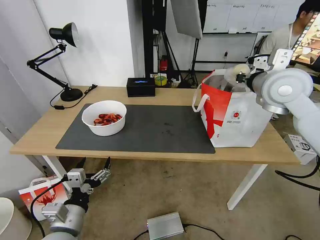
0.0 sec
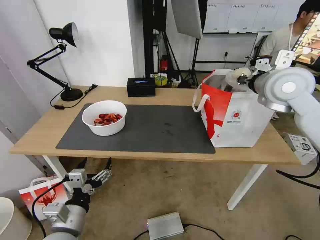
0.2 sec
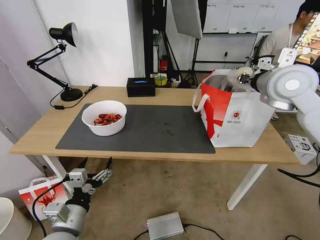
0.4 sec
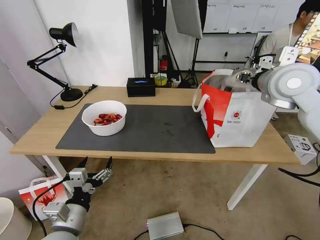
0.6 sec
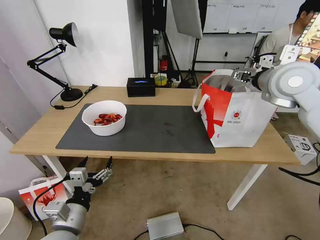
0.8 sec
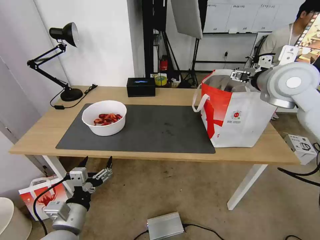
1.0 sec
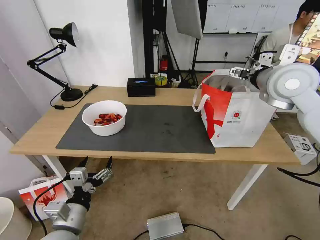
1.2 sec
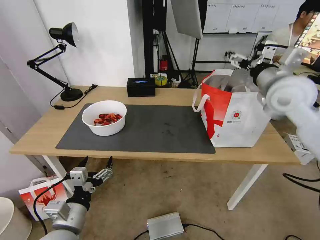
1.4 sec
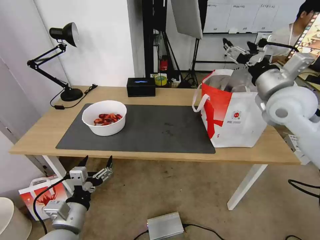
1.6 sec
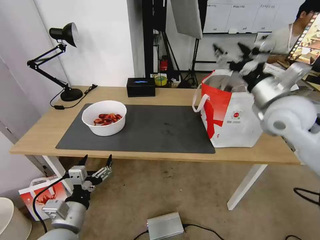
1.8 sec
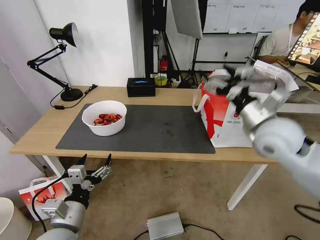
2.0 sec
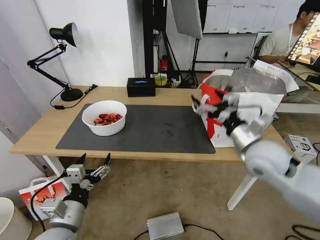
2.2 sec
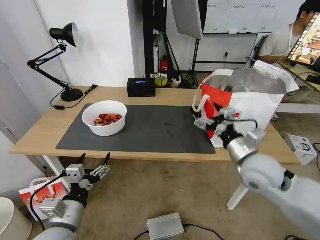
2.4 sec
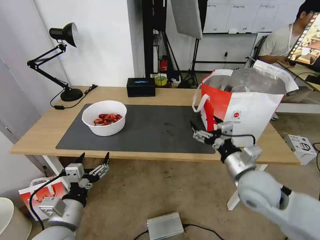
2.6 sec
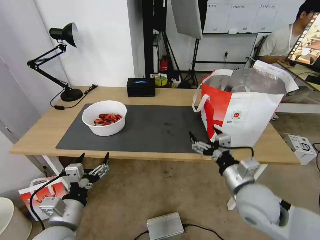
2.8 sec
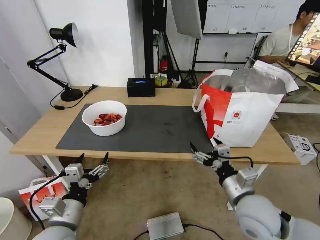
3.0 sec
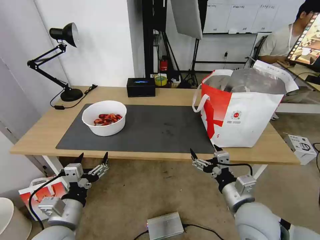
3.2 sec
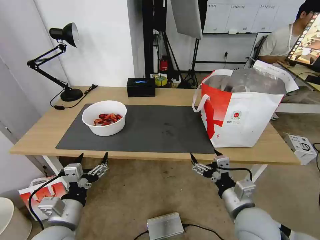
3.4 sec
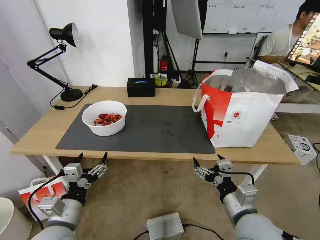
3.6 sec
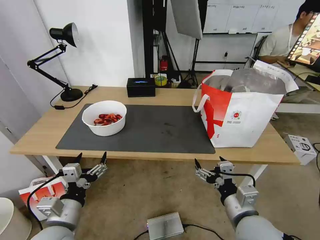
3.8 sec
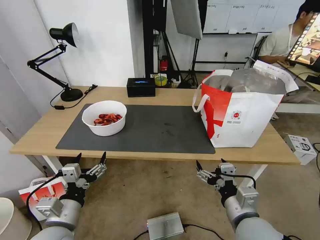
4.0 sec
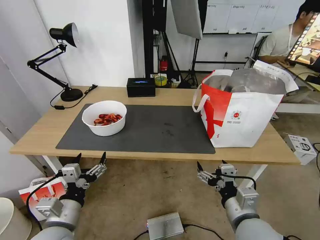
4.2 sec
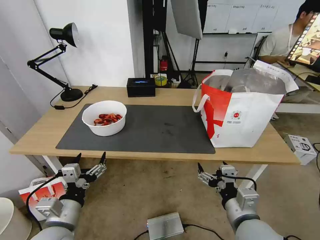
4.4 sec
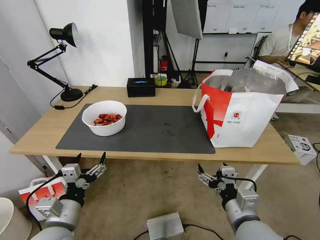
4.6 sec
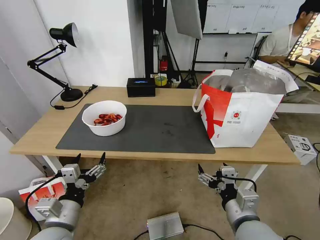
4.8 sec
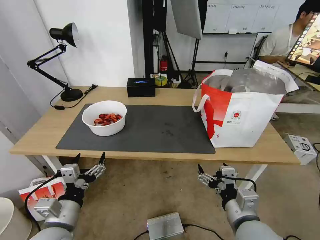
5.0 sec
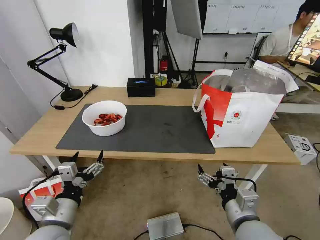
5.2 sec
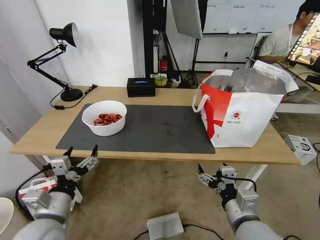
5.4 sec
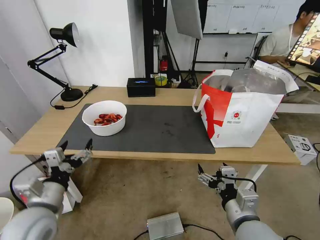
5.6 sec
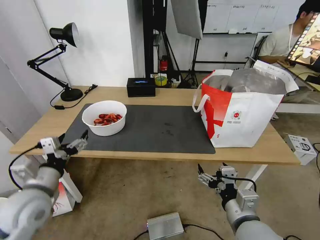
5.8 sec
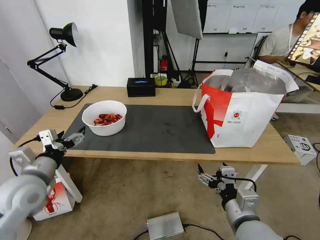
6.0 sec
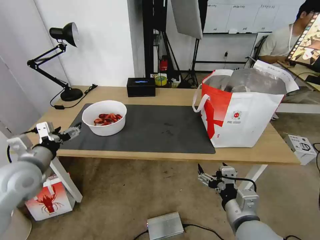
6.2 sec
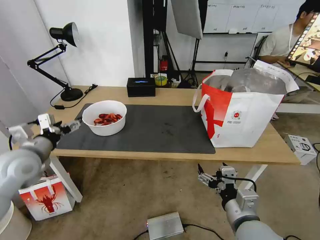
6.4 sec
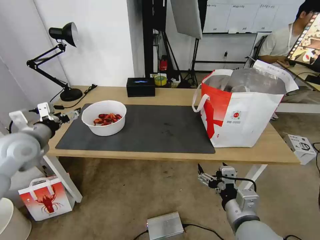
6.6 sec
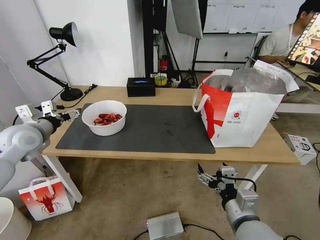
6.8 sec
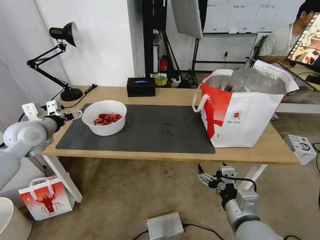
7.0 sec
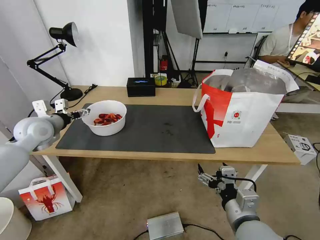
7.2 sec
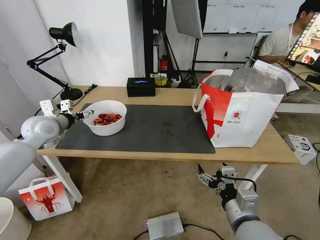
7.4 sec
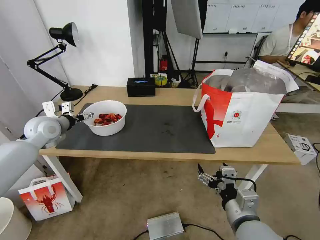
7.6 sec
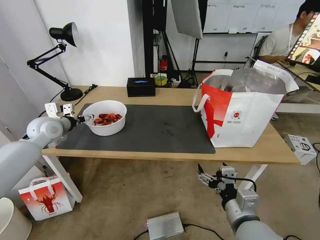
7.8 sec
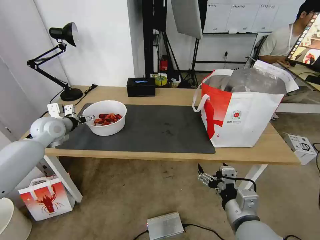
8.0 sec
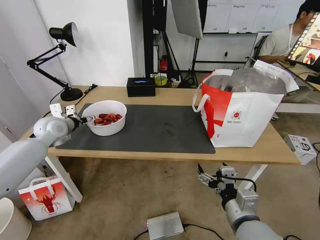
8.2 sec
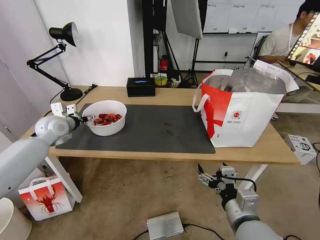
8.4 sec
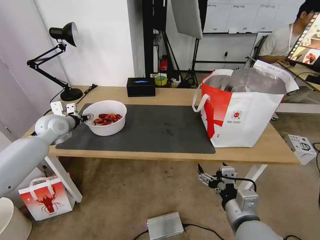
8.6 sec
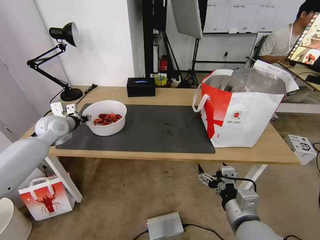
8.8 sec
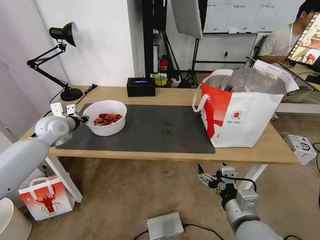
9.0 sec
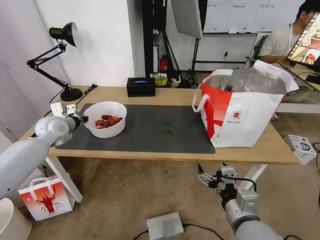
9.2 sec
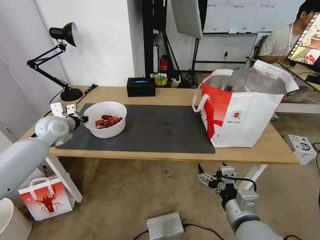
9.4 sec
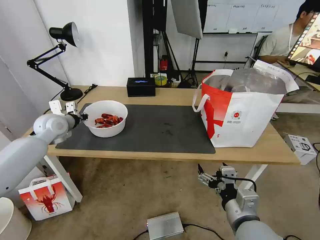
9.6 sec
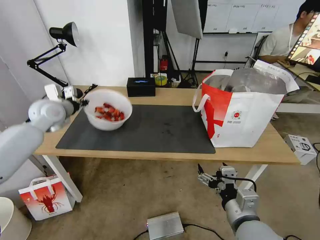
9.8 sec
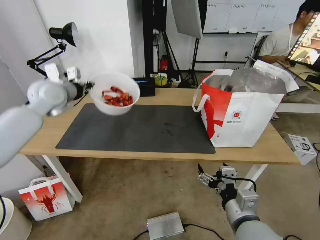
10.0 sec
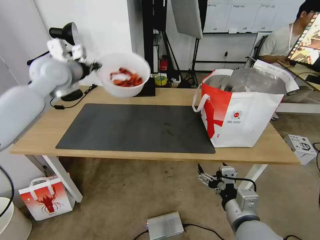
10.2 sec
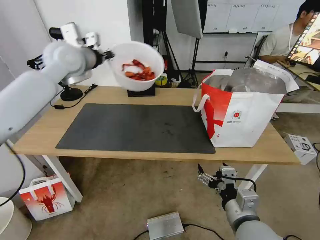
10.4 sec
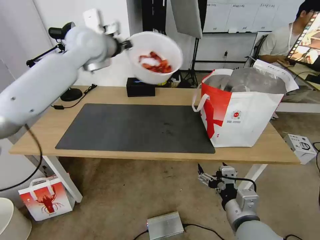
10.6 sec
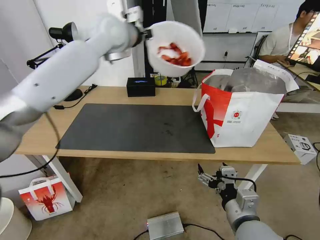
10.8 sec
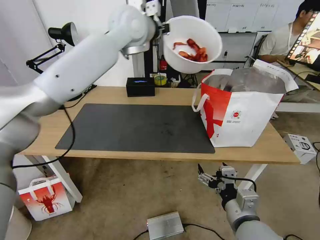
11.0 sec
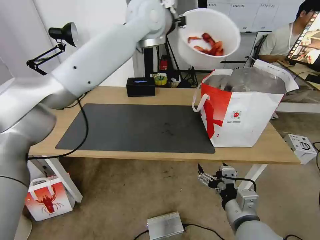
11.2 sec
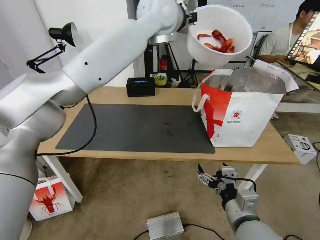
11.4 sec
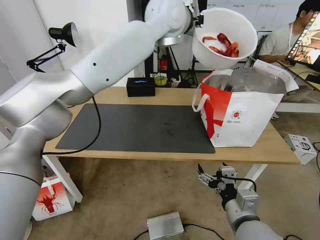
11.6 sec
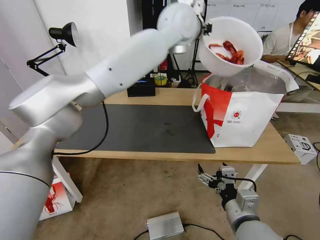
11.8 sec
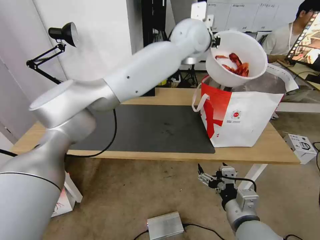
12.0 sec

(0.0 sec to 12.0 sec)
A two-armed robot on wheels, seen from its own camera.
Task of the whole recording: Pick up the trash from the table and place it into the takeout bag.
0.0 sec - 1.6 sec: The right gripper opens.
1.6 sec - 3.0 sec: The right gripper is displaced downward and backward by roughly 30 cm.
3.0 sec - 4.4 sec: The right gripper goes roughly 5 cm backward.
4.4 sec - 6.0 sec: The left gripper is displaced forward, to the left and upward by approximately 15 cm.
6.0 sec - 7.6 sec: The left gripper shifts some 20 cm forward.
7.6 sec - 9.0 sec: The left gripper closes up.
9.0 sec - 10.4 sec: The left gripper goes approximately 25 cm upward and to the right.
10.4 sec - 12.0 sec: The left gripper is displaced to the right by some 35 cm.

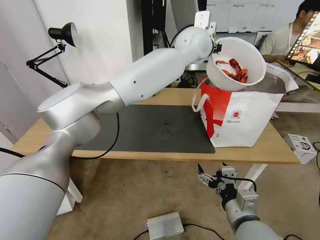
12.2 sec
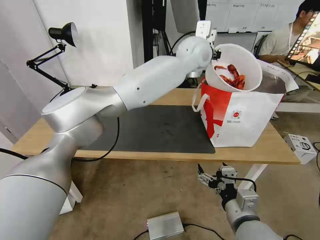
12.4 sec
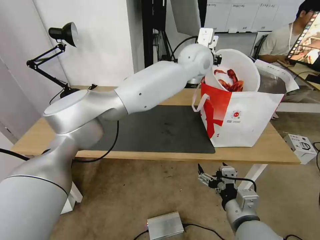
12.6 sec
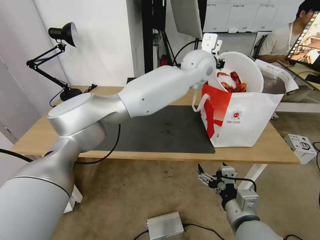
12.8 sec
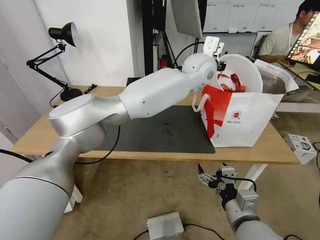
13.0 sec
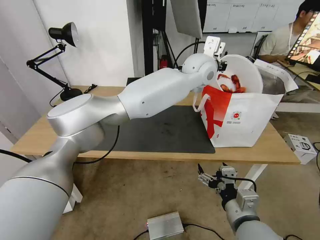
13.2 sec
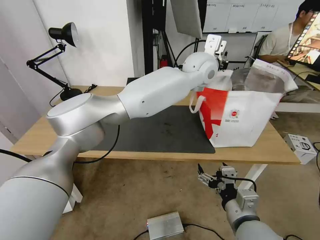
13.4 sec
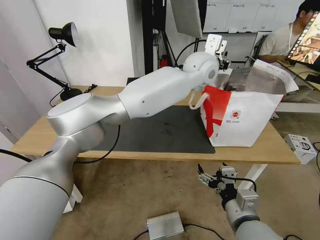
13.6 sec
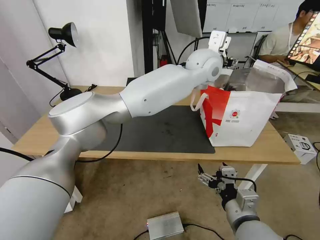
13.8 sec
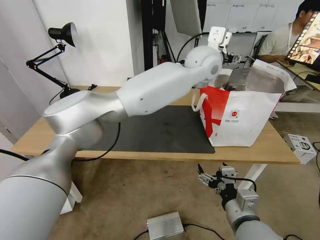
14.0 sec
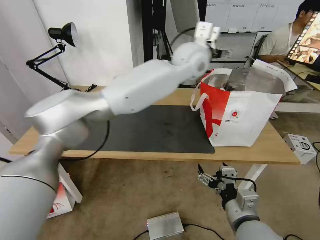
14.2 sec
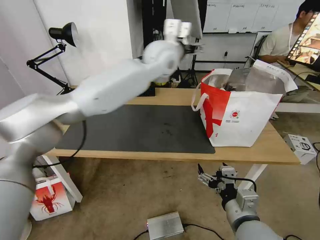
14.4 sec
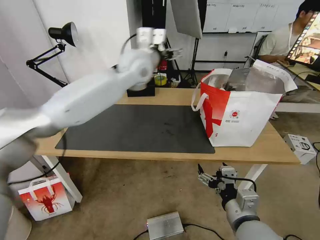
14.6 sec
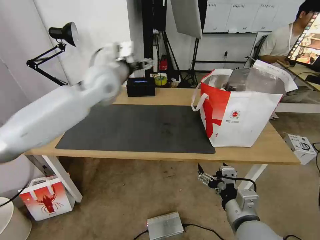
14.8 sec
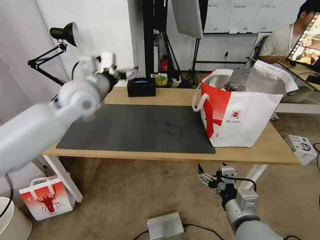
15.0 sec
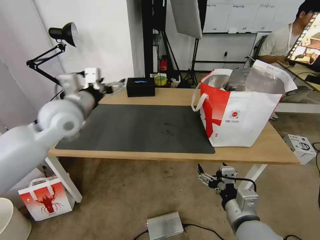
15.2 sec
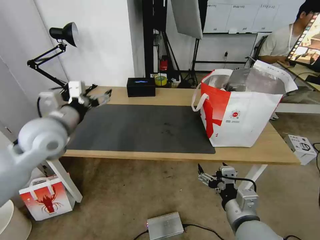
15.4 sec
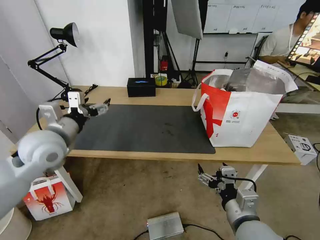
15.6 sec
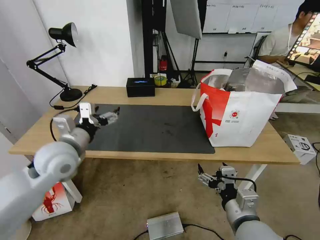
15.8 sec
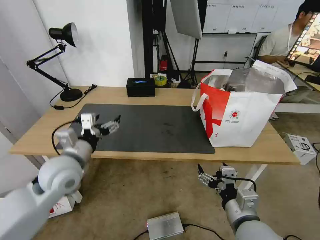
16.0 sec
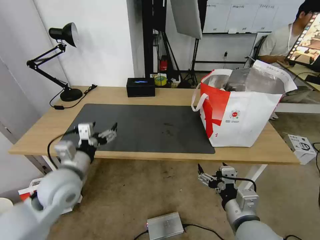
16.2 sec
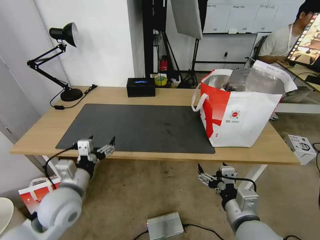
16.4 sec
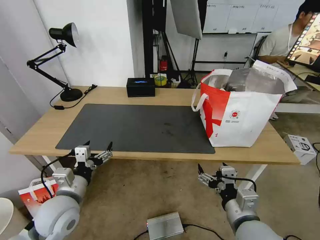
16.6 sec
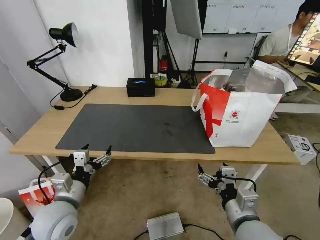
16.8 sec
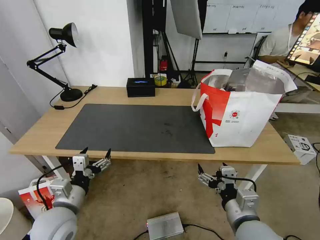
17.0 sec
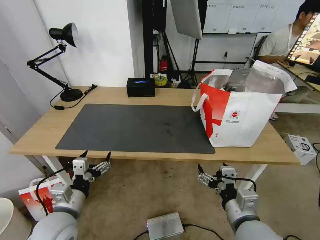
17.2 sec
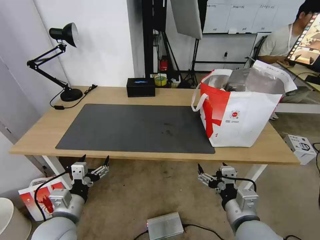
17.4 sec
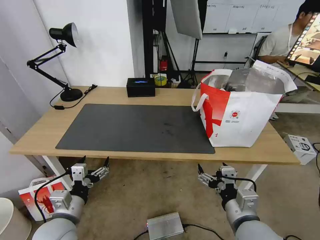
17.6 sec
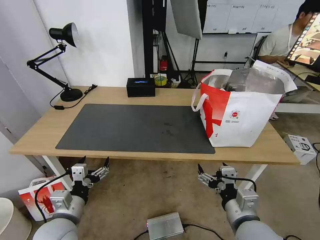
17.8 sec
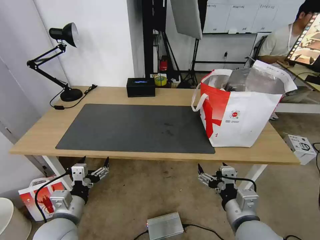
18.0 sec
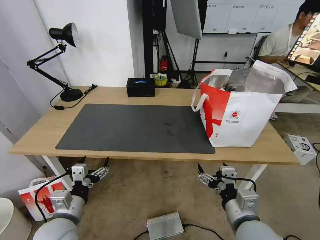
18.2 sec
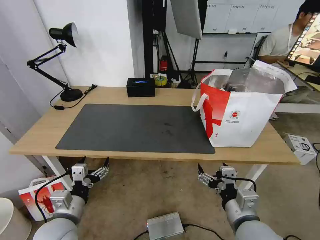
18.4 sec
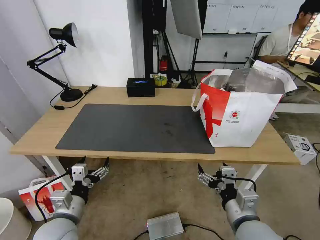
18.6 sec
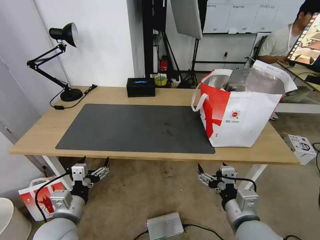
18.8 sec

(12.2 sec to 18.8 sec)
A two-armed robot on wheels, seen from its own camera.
Task of the whole recording: Pick up the trash from the table and place it into the takeout bag.
12.2 sec - 13.8 sec: The left gripper shifts by some 5 cm, and opens.
13.8 sec - 15.4 sec: The left gripper shifts approximately 50 cm to the left and backward.
15.4 sec - 17.2 sec: The left gripper is displaced downward and backward by about 25 cm.
17.2 sec - 18.8 sec: There are only small adjustments of the grippers.
